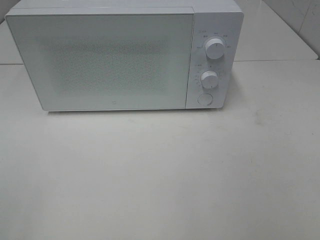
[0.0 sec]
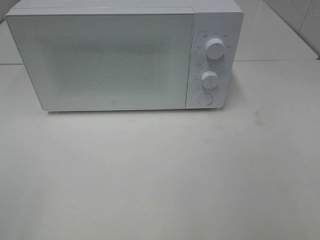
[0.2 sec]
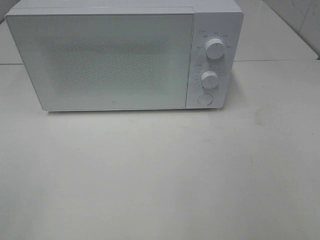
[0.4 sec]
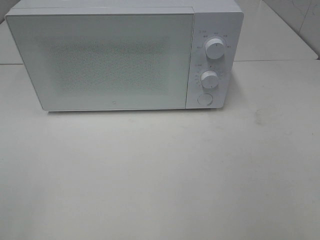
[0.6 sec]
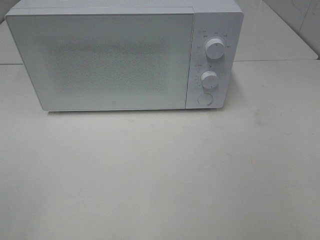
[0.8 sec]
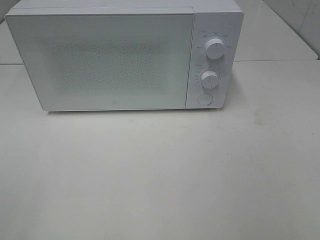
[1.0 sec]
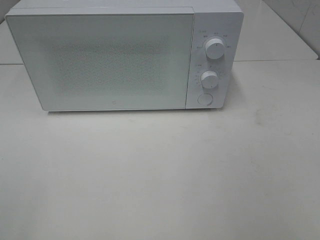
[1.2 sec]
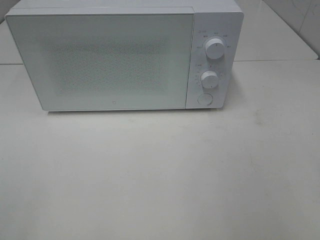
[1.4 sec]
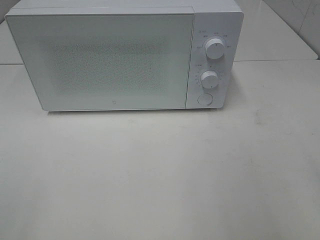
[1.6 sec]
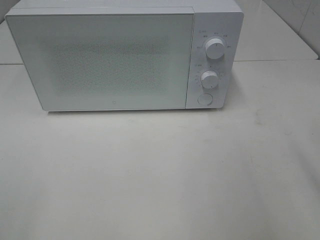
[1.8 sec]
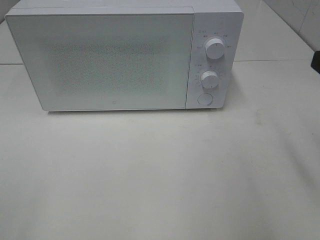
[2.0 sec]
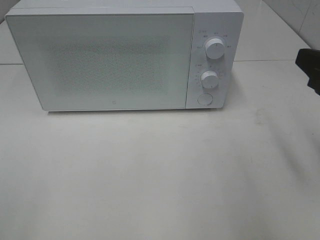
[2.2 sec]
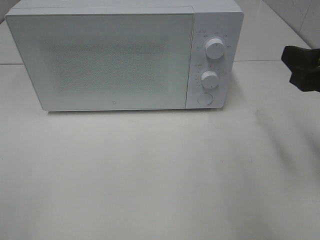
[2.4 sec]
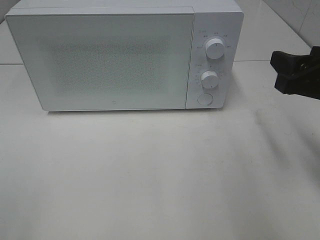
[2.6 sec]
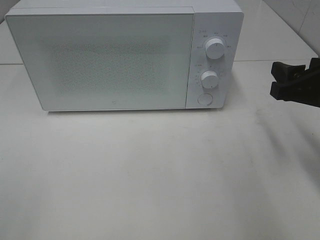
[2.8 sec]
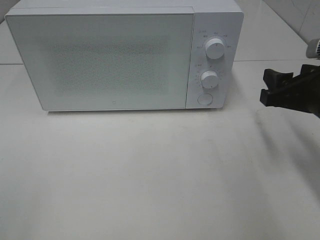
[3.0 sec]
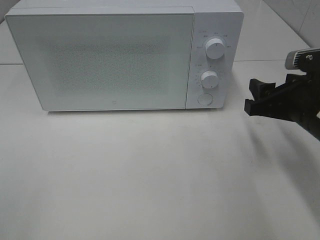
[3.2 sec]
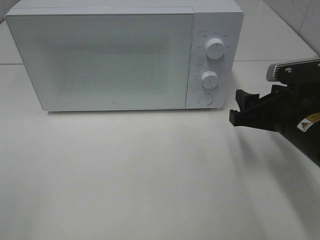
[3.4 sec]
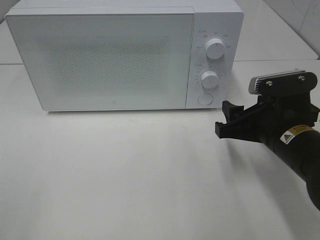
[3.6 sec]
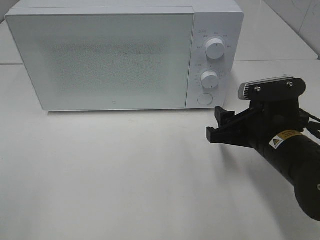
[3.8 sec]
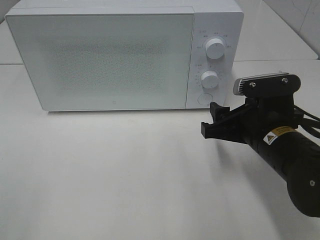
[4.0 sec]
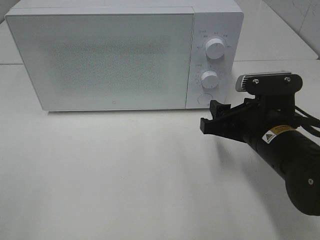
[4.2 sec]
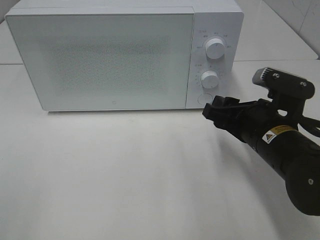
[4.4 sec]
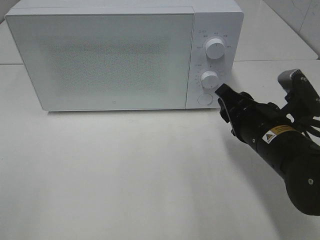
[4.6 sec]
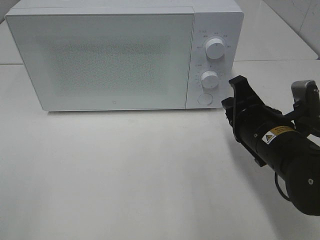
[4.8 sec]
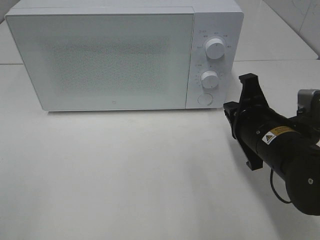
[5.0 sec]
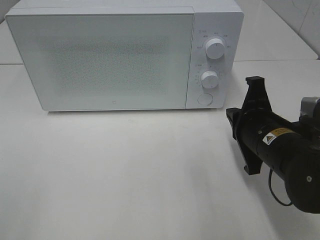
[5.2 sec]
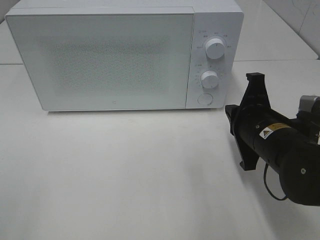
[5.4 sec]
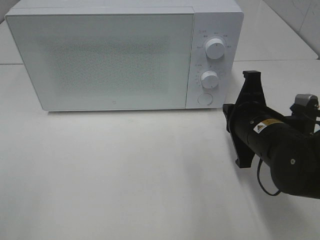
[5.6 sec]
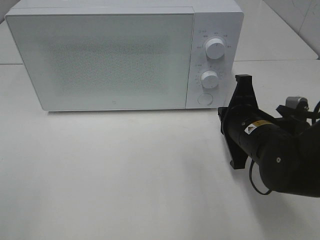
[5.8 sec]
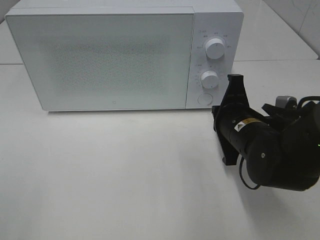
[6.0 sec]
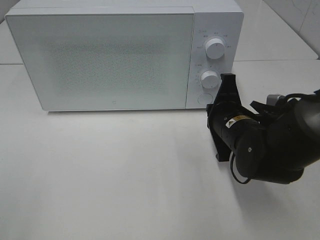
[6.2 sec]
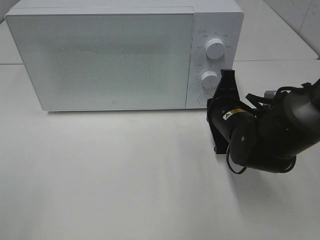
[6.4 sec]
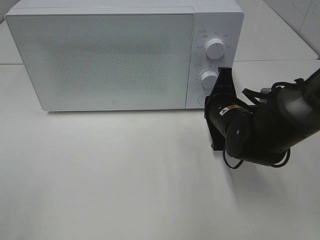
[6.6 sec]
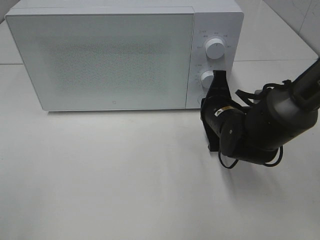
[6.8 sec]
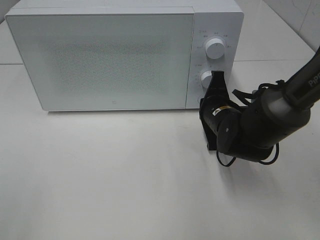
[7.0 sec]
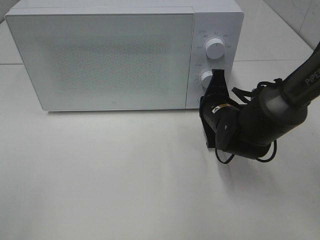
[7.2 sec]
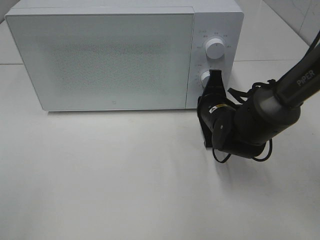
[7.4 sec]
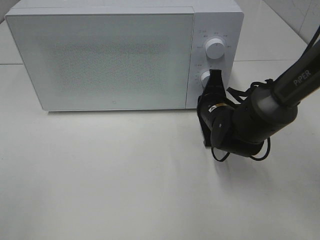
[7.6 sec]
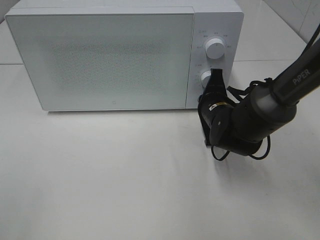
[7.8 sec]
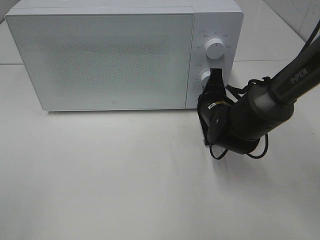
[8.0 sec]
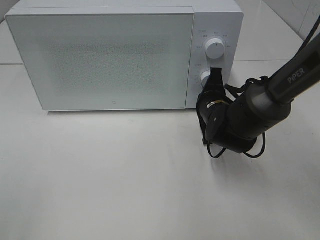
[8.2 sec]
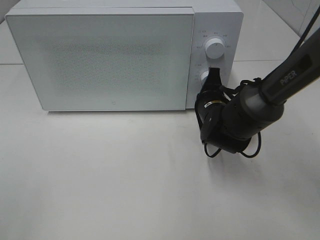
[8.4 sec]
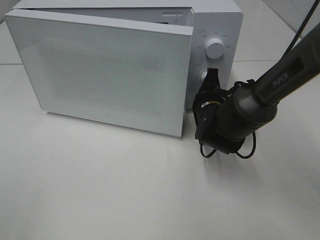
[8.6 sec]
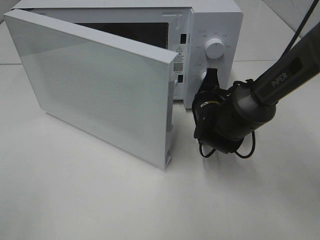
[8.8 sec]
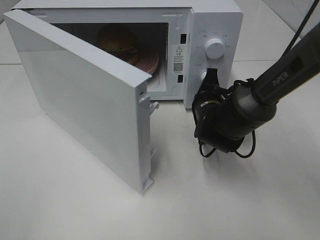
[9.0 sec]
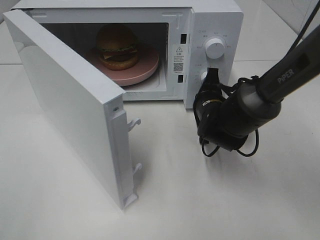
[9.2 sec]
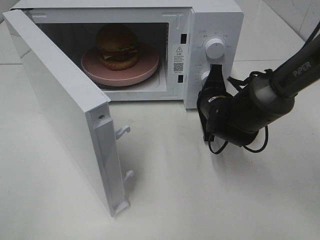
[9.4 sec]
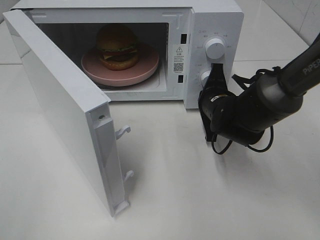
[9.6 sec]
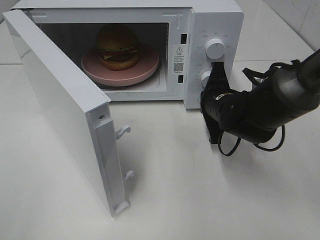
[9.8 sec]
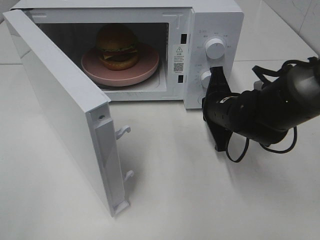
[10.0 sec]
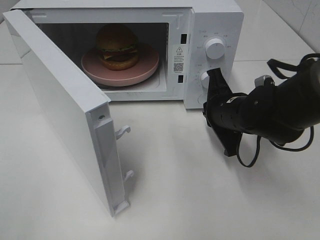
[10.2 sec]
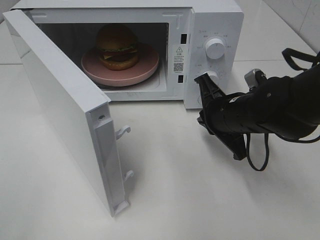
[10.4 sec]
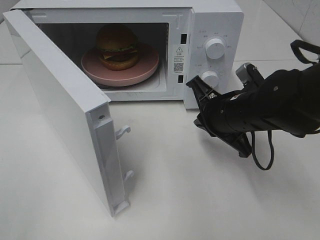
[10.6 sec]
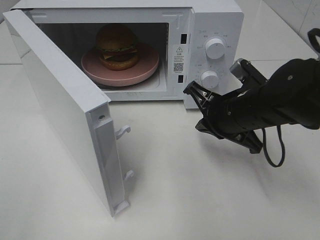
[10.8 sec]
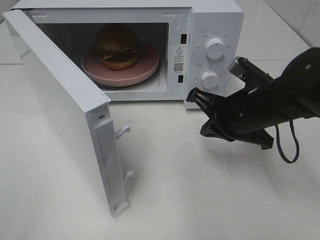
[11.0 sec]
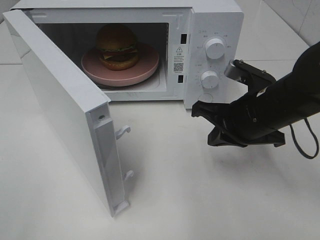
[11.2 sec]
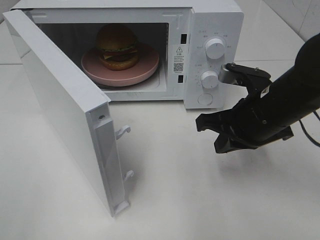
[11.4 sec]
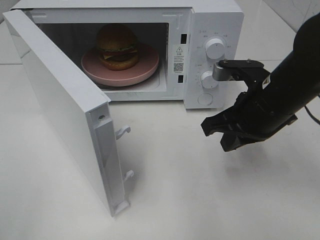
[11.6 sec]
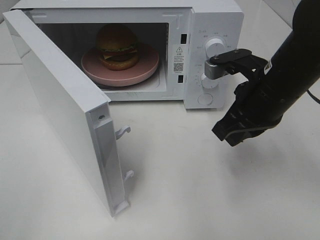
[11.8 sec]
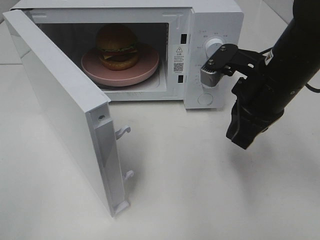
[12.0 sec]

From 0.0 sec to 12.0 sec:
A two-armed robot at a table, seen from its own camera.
Task of the whole recording: Heat the burger.
Step, from 0.0 sec to 9.6 sec: Right hand: press the switch.
From 1.6 sec to 3.0 sec: The right gripper moves forward and downward, some 20 cm.
From 3.0 sec to 4.4 sec: The right gripper heads to the left, covering approximately 10 cm.
From 4.4 sec to 6.0 sec: The right gripper closes.
From 6.0 sec to 7.6 sec: The right gripper is displaced forward by some 10 cm.
From 9.0 sec to 10.4 sec: The right gripper shifts about 10 cm backward and upward.
From 10.4 sec to 12.0 sec: The right gripper heads upward, covering some 10 cm.

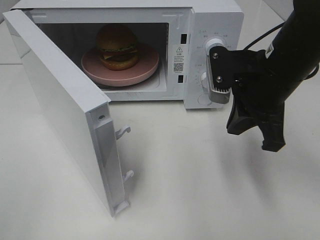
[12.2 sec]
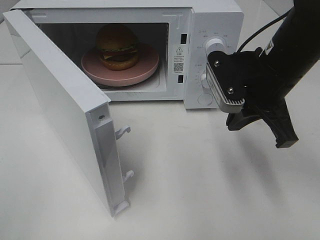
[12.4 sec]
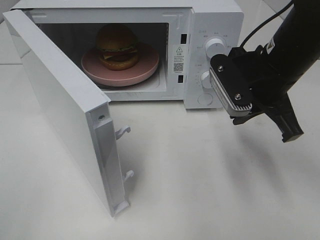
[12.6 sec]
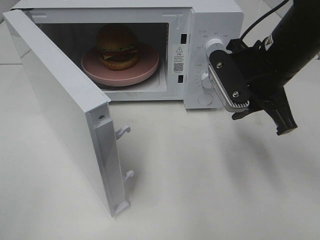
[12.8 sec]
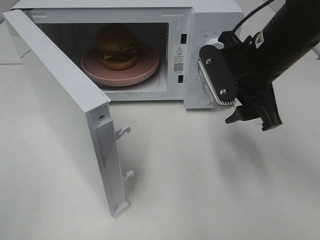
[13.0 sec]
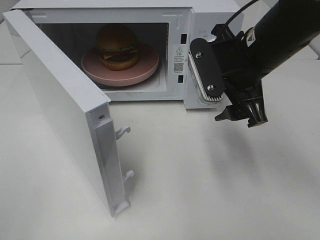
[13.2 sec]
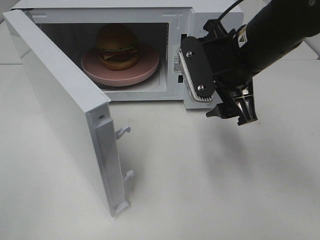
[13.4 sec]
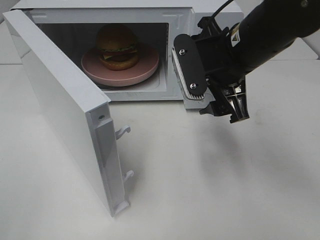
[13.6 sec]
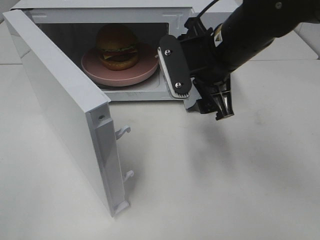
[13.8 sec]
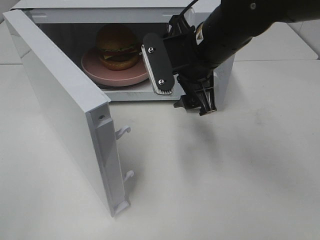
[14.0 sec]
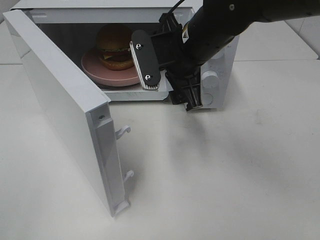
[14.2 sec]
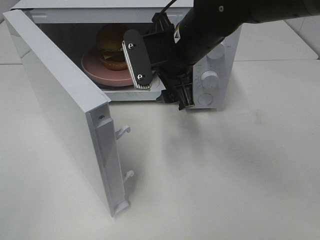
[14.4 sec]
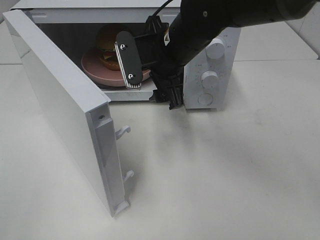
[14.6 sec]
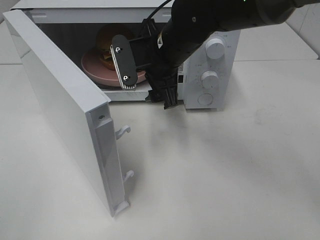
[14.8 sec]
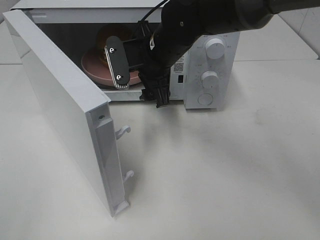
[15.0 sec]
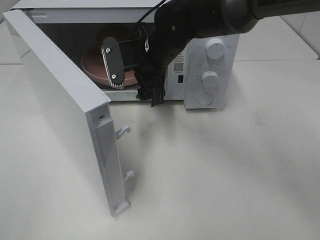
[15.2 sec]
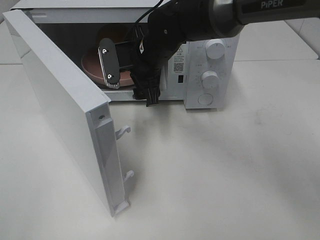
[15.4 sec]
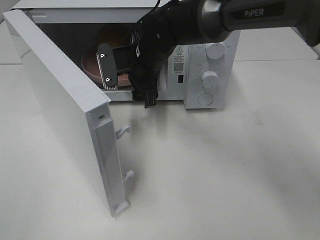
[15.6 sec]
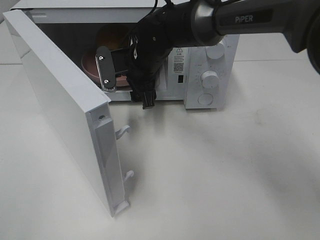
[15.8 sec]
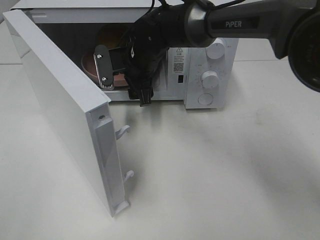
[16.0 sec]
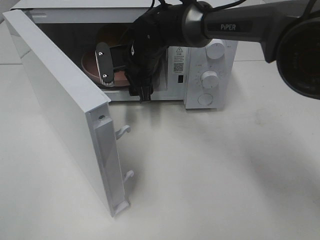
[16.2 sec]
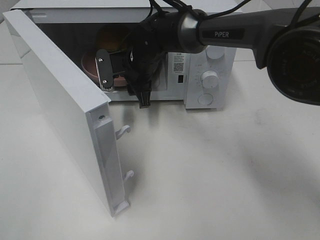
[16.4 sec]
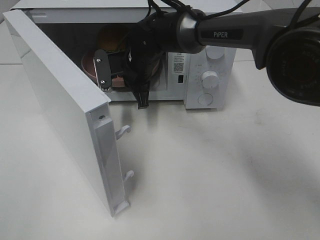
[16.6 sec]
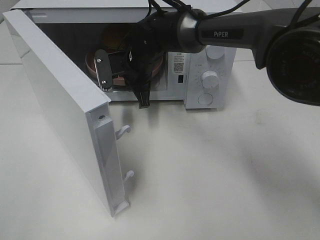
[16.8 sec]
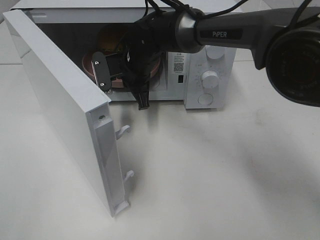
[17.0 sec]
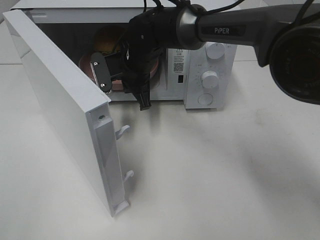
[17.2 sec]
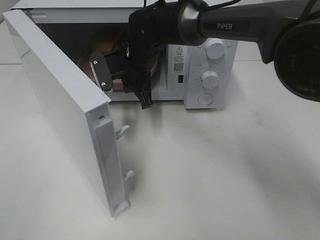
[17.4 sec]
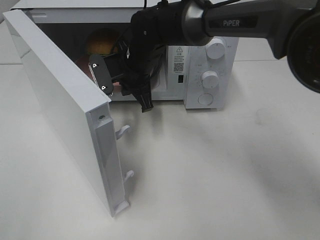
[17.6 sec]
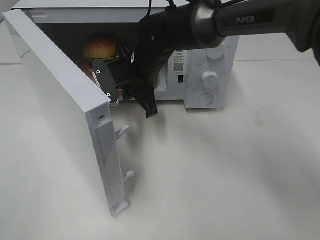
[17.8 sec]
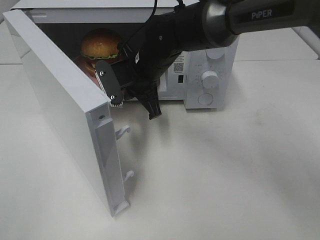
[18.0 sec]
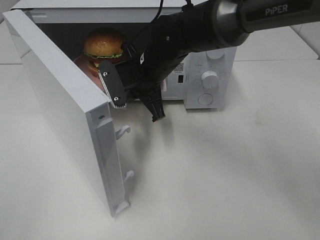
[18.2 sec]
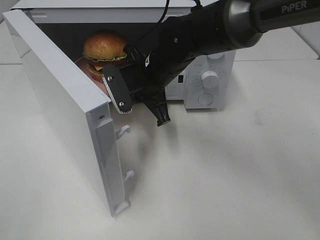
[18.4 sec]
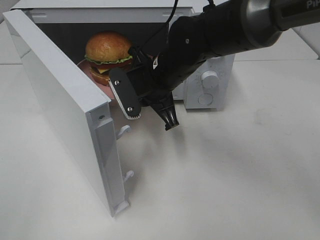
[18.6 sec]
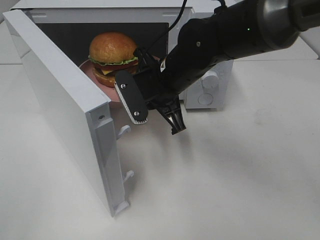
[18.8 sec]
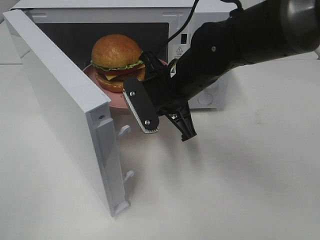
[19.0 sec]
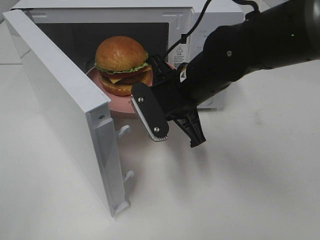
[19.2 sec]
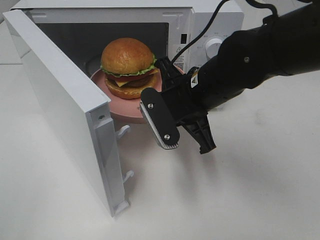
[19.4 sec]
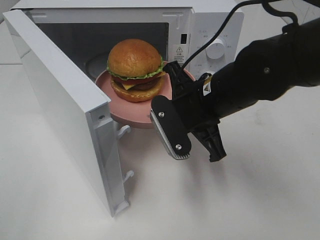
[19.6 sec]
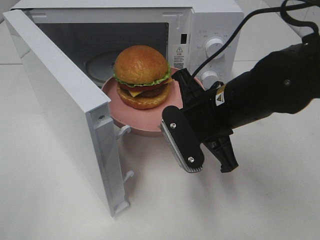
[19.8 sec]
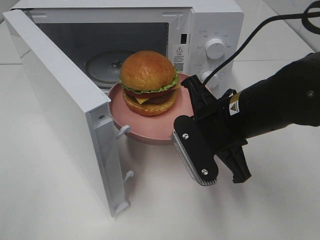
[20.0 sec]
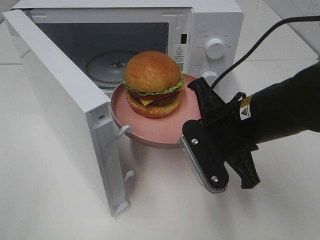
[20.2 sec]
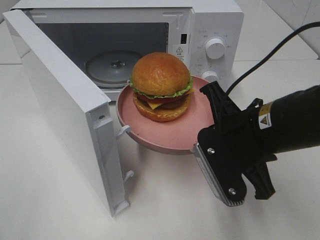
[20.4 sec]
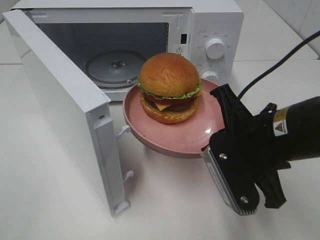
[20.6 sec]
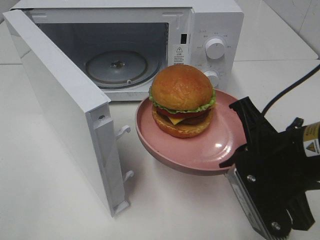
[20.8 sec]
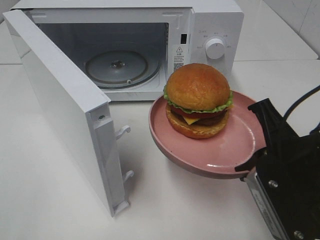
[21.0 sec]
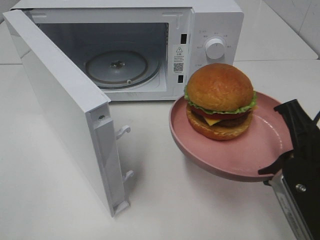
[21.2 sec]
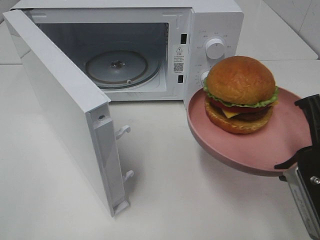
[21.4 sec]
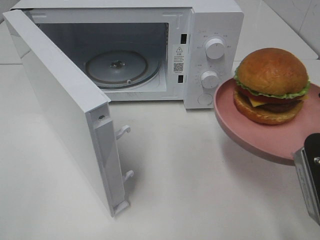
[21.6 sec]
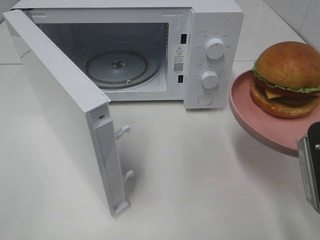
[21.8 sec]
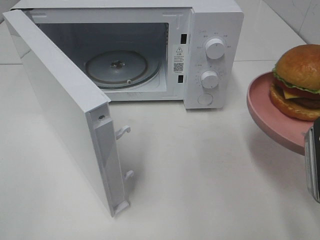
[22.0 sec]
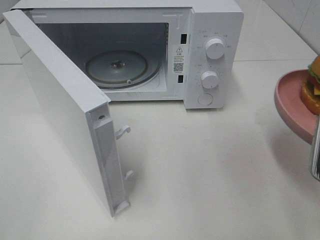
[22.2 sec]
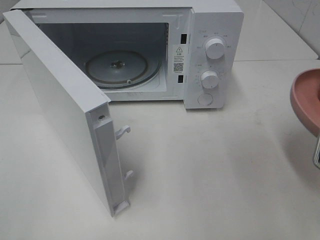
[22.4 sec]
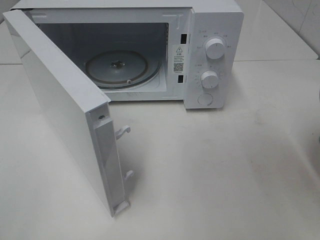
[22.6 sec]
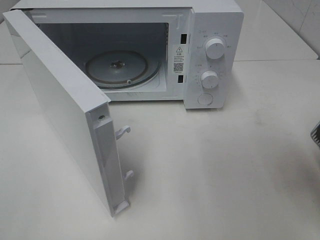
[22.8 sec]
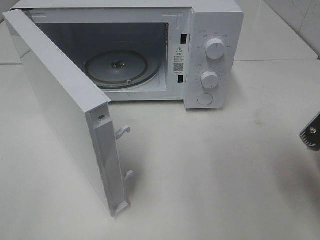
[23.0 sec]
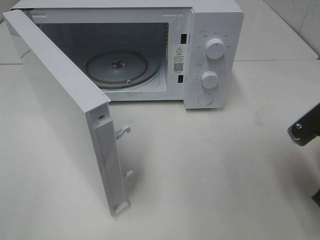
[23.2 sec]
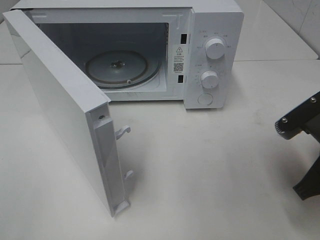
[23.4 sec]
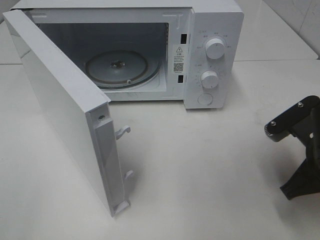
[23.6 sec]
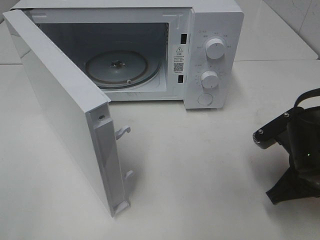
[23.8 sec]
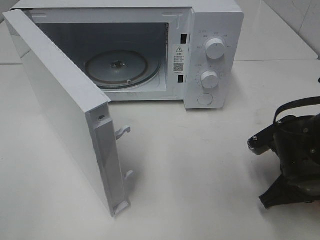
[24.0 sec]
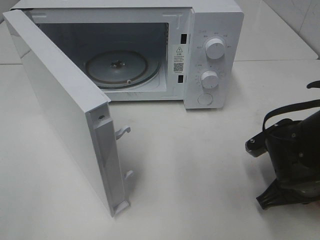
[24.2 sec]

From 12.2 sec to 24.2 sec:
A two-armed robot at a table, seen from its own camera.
Task of the whole recording: Heat the burger.
Step, from 12.2 sec to 16.6 sec: Right hand: grab the plate with the hamburger.
From 12.2 sec to 13.8 sec: The right gripper shifts some 5 cm to the left, and opens up.
From 13.8 sec to 15.2 sec: The right gripper is displaced to the left and forward by approximately 10 cm.
From 15.2 sec to 16.6 sec: The right gripper travels forward by approximately 5 cm, and closes.
From 16.6 sec to 18.2 sec: The right gripper travels backward by approximately 5 cm.
From 18.2 sec to 19.8 sec: The right gripper heads backward and to the right, covering some 15 cm.
From 19.8 sec to 21.2 sec: The right gripper goes roughly 15 cm backward and to the right.
From 21.2 sec to 22.6 sec: The right gripper is displaced to the right by roughly 5 cm.
From 22.6 sec to 24.2 sec: The right gripper goes roughly 15 cm downward and forward.
